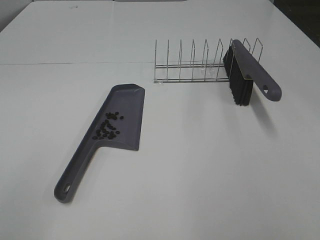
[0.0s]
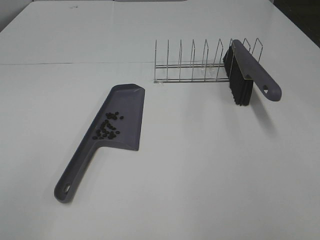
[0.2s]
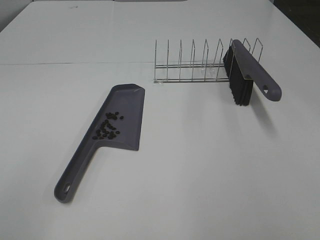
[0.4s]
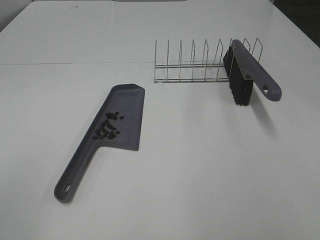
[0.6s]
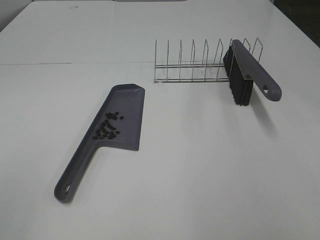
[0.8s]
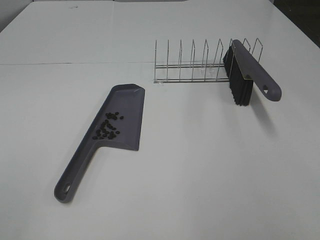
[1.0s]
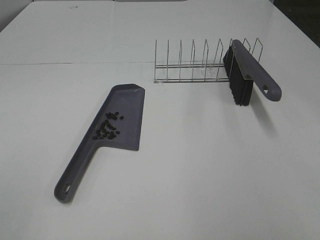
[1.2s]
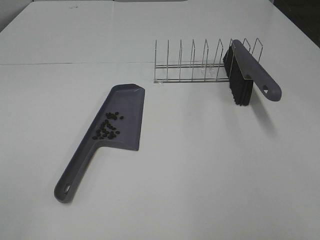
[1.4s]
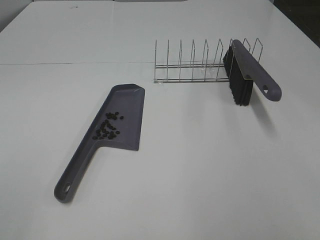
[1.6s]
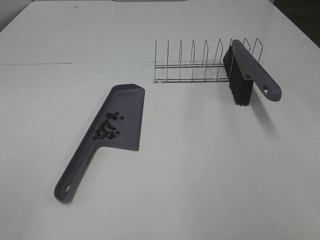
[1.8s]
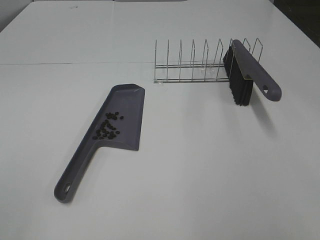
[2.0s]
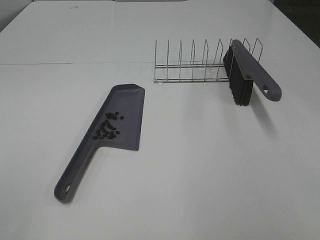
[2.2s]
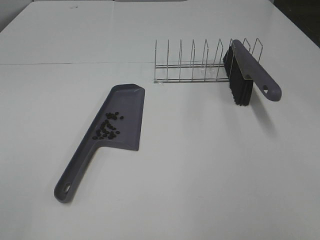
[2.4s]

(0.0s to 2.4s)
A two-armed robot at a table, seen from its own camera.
Task of the whole recording: Sweep Coffee Bean.
1.2s - 2.4s: The two grippers keep their place.
